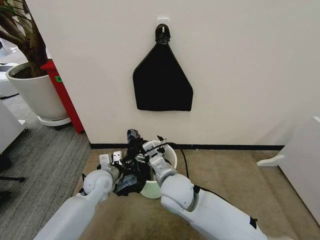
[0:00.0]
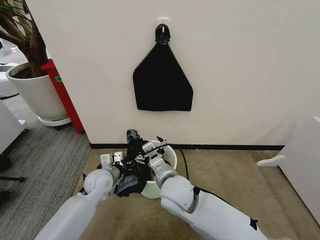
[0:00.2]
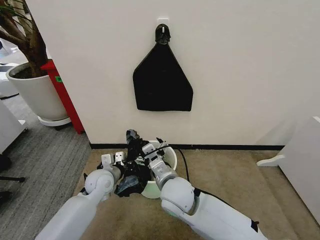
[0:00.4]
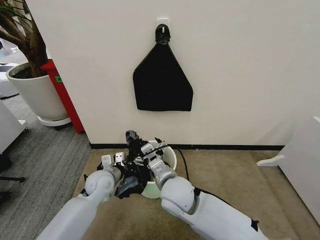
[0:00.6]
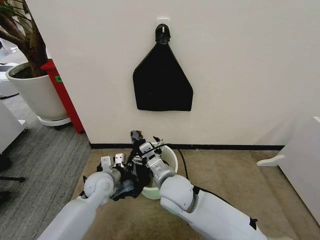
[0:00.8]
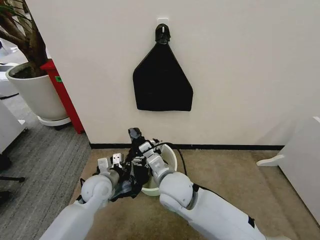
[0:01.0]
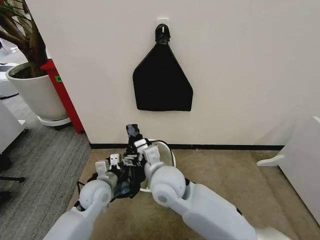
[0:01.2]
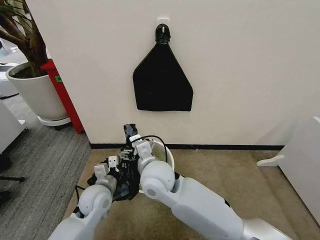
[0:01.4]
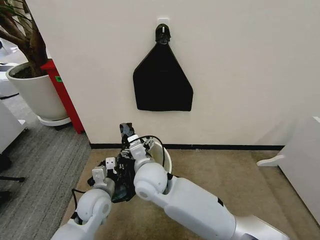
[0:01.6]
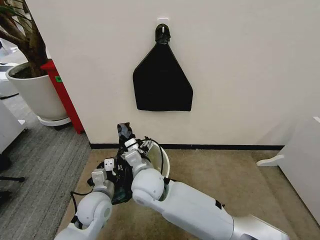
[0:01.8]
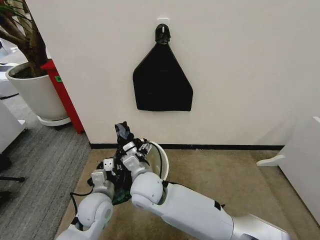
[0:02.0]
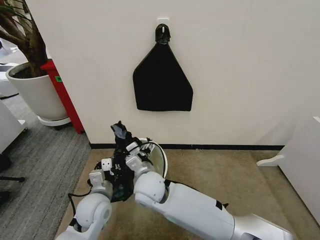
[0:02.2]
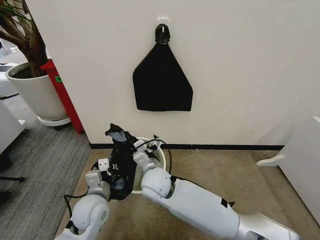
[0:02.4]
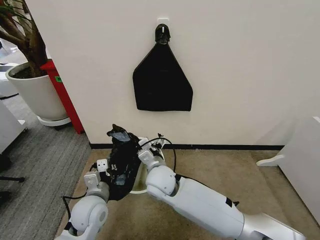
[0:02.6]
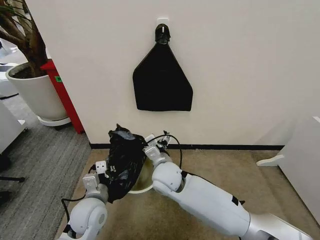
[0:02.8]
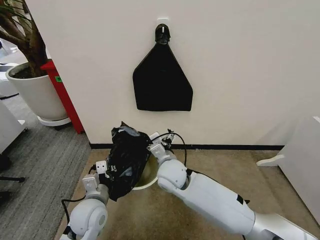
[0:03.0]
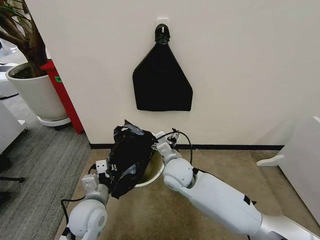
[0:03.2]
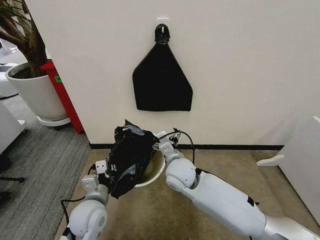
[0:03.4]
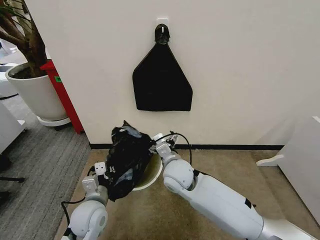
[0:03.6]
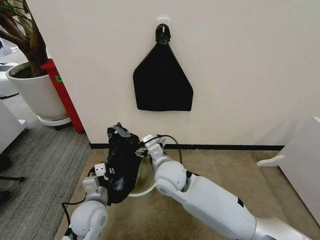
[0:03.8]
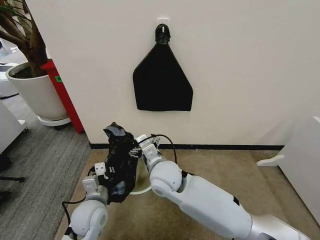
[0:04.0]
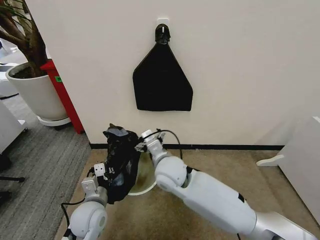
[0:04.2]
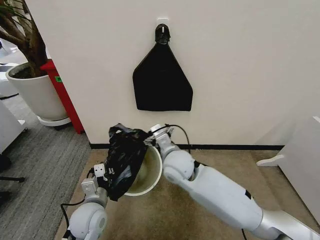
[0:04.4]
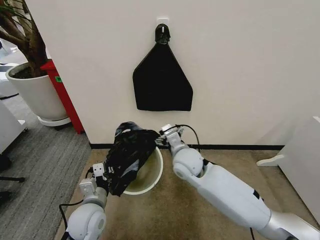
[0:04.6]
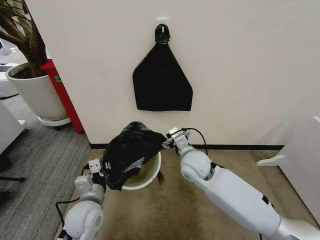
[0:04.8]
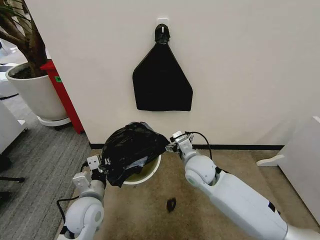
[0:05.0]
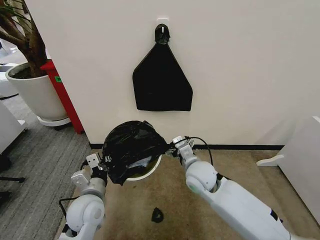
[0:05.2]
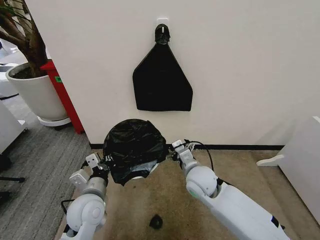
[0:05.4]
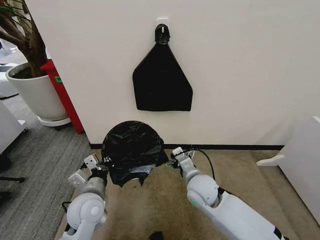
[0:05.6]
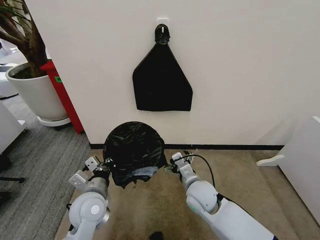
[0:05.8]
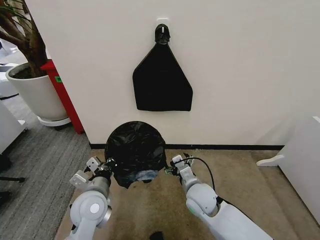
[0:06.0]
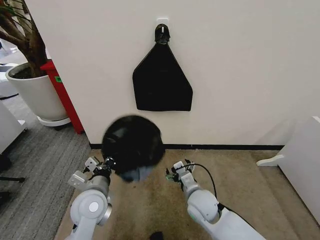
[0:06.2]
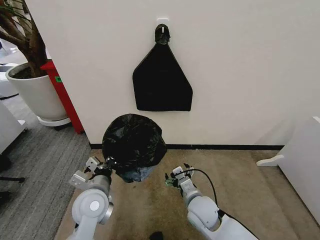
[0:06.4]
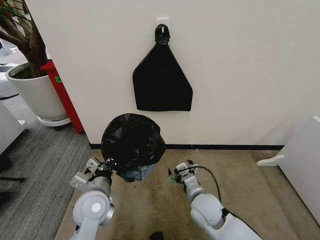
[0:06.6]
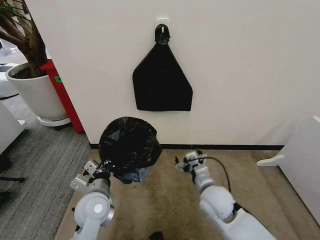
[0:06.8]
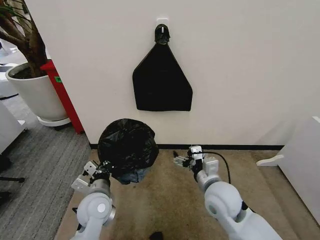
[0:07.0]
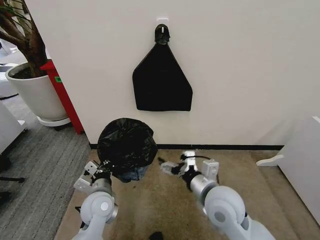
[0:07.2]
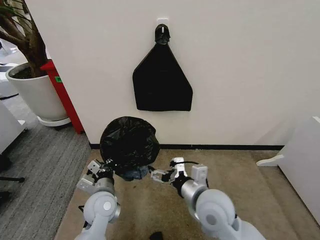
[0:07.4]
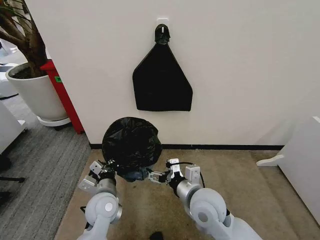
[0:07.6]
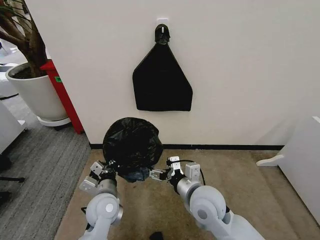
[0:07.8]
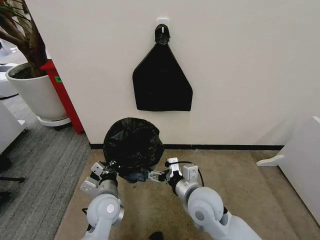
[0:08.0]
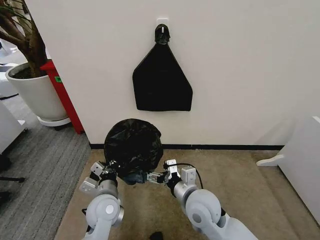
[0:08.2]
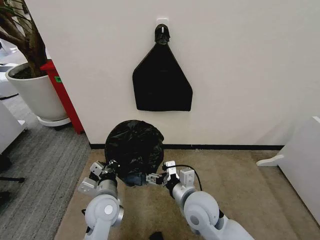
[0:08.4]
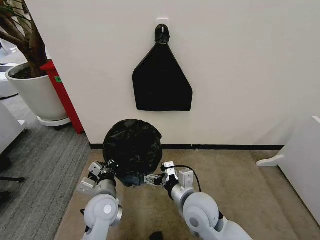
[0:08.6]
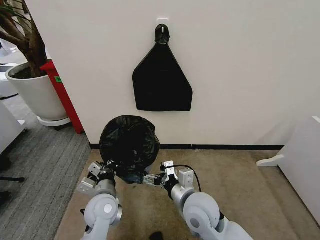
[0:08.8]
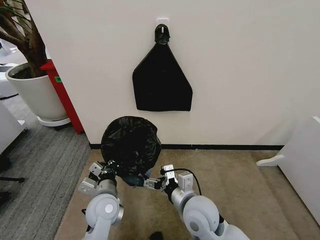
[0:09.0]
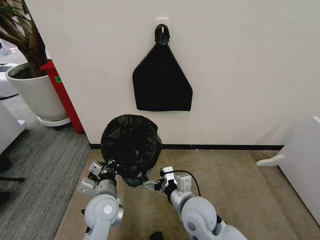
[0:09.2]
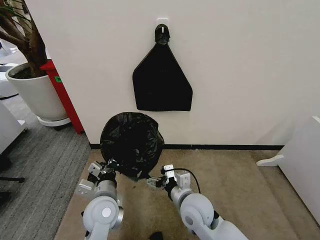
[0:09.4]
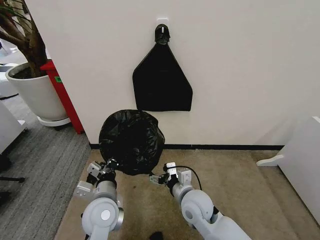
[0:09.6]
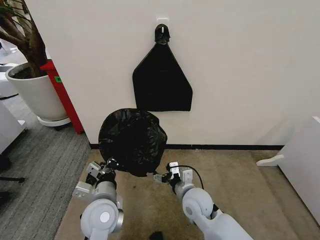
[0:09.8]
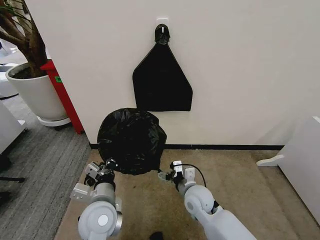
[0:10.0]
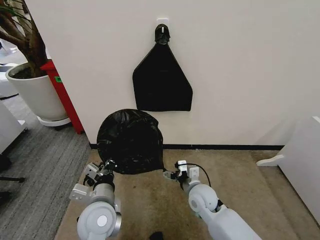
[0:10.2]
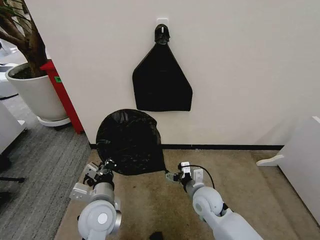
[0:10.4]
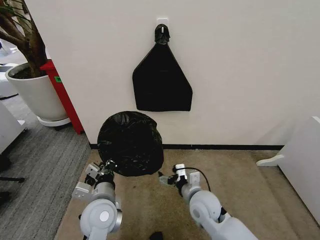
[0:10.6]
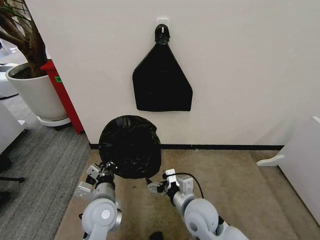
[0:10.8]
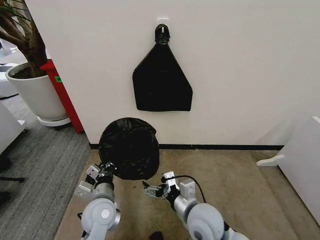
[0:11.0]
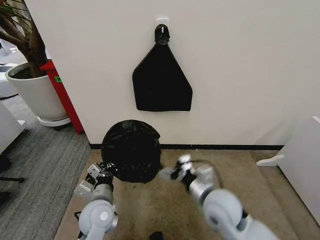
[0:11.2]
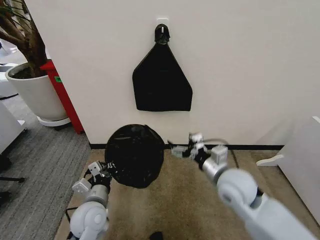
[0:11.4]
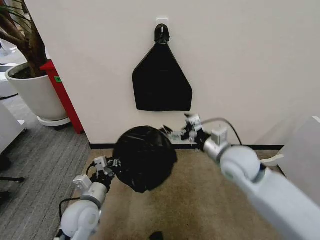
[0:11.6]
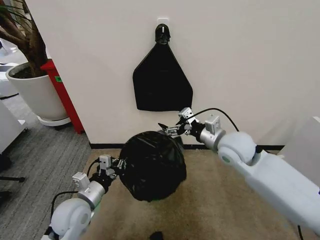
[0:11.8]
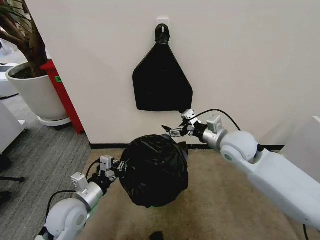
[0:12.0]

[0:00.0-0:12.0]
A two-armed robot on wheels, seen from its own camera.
Task of the whole recording: Place the garbage bag over the trash bin.
0:00.0 to 0:01.6: The left gripper shifts roughly 10 cm backward, and closes. Meanwhile the right gripper heads to the left, covering some 5 cm.
0:01.6 to 0:03.0: The right gripper shifts about 5 cm to the right.
0:03.0 to 0:04.4: The grippers make only small movements.
0:04.4 to 0:06.0: The left gripper travels upward by approximately 5 cm. The right gripper moves downward, to the right and backward, some 15 cm.
0:06.0 to 0:07.6: The left gripper moves approximately 5 cm; the right gripper is displaced upward and backward by approximately 10 cm.
0:07.6 to 0:09.0: The grippers move only a little.
0:09.0 to 0:10.4: The right gripper shifts some 10 cm downward and forward. The left gripper ends up roughly 5 cm from where it was.
0:10.4 to 0:12.0: The right gripper goes approximately 20 cm upward, forward and to the right. The left gripper shifts roughly 10 cm to the left.

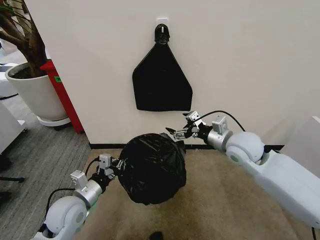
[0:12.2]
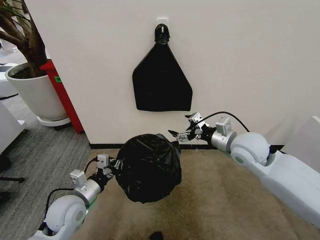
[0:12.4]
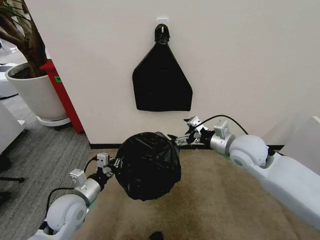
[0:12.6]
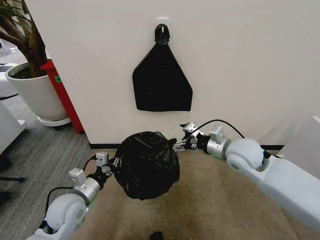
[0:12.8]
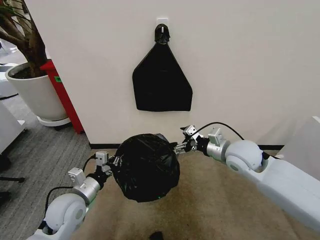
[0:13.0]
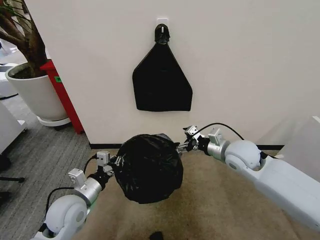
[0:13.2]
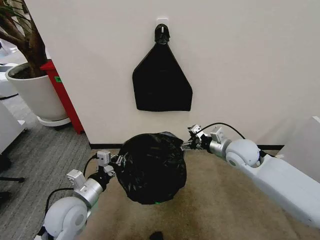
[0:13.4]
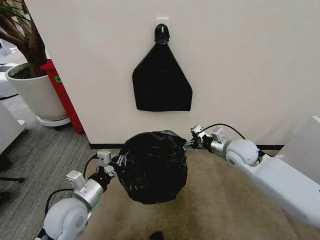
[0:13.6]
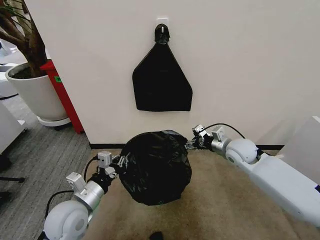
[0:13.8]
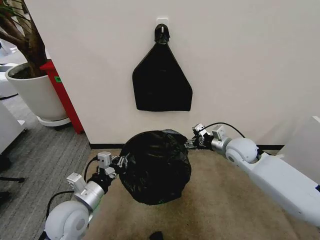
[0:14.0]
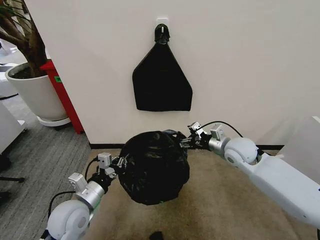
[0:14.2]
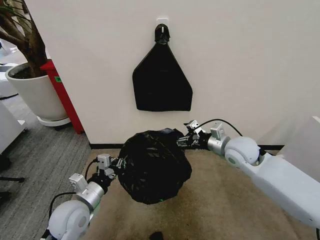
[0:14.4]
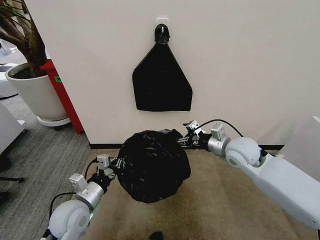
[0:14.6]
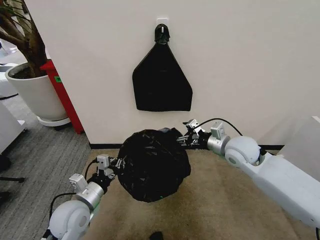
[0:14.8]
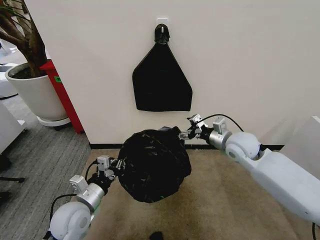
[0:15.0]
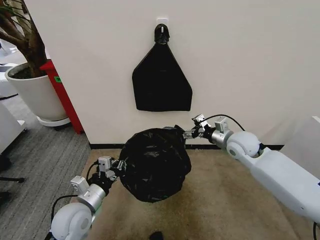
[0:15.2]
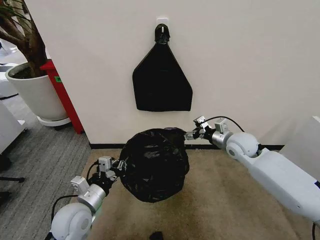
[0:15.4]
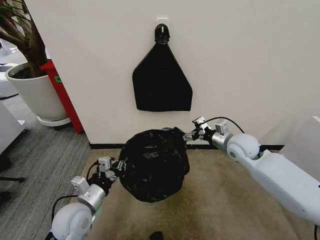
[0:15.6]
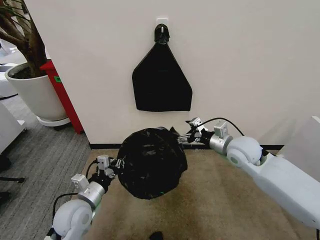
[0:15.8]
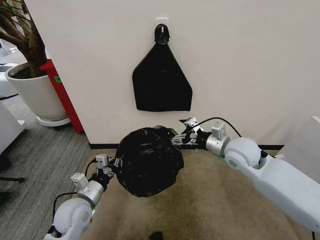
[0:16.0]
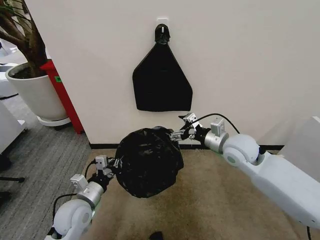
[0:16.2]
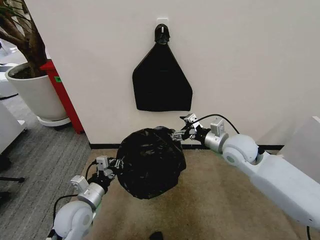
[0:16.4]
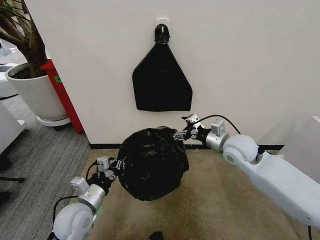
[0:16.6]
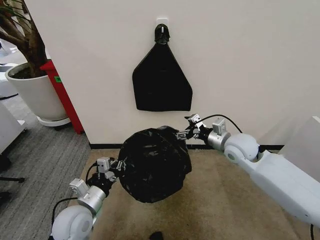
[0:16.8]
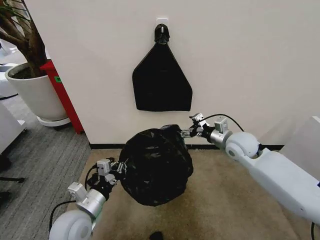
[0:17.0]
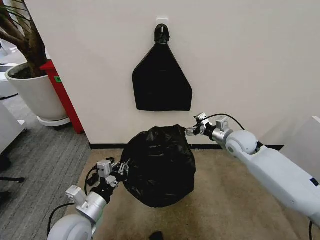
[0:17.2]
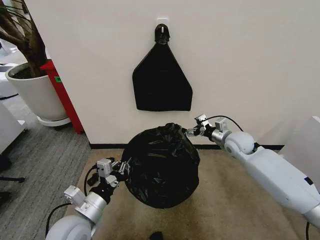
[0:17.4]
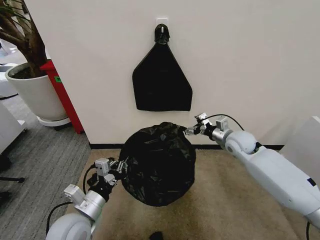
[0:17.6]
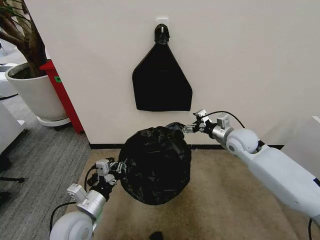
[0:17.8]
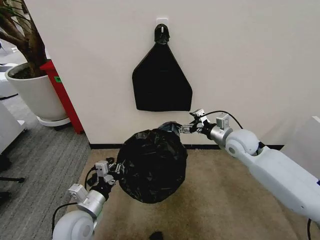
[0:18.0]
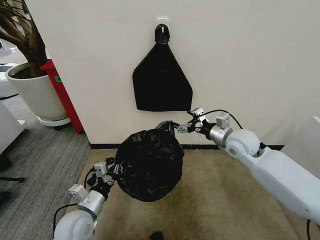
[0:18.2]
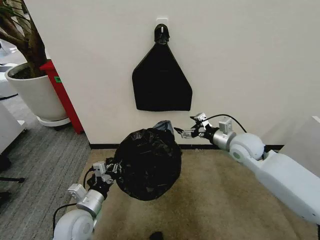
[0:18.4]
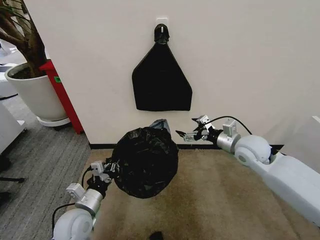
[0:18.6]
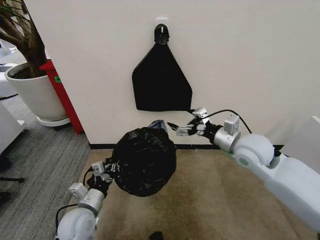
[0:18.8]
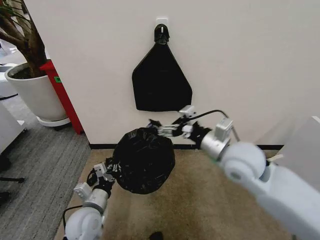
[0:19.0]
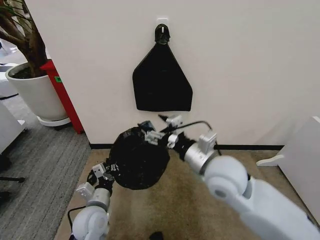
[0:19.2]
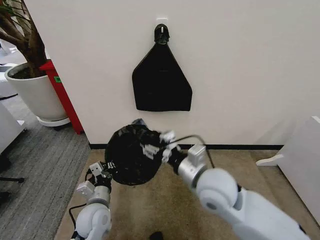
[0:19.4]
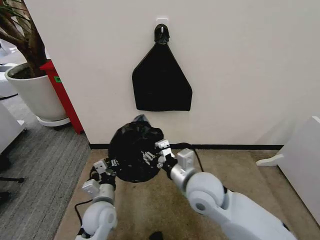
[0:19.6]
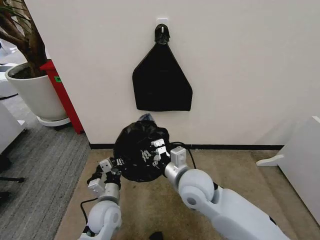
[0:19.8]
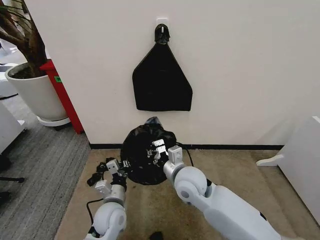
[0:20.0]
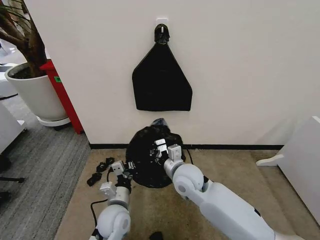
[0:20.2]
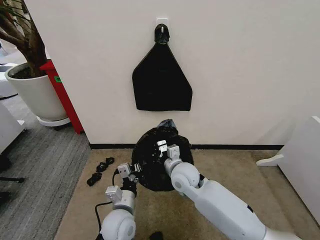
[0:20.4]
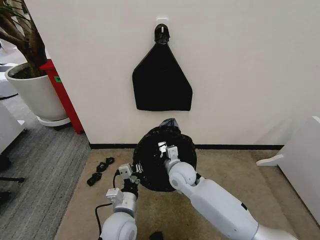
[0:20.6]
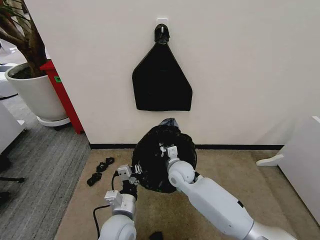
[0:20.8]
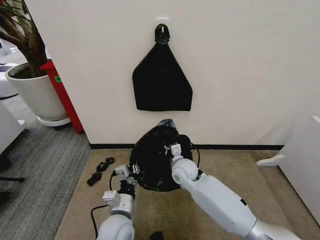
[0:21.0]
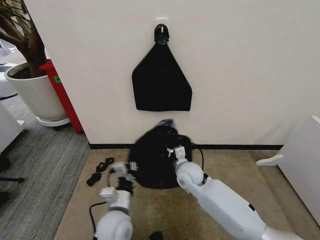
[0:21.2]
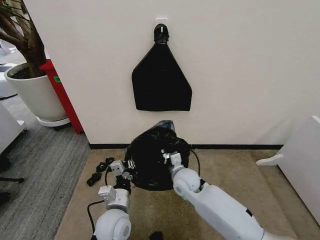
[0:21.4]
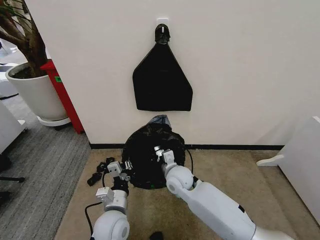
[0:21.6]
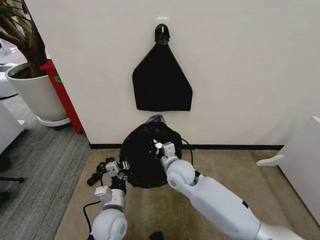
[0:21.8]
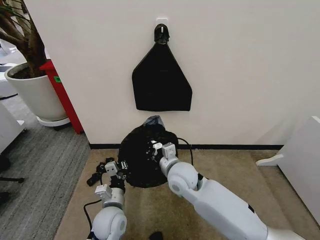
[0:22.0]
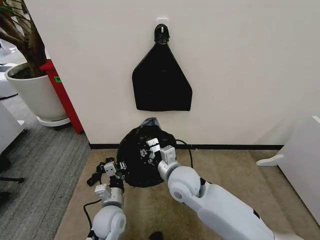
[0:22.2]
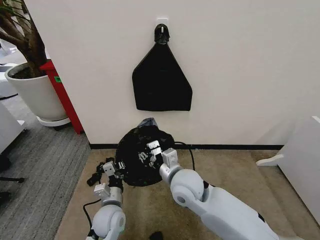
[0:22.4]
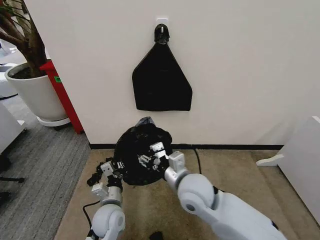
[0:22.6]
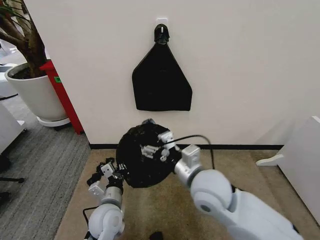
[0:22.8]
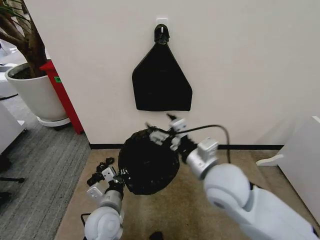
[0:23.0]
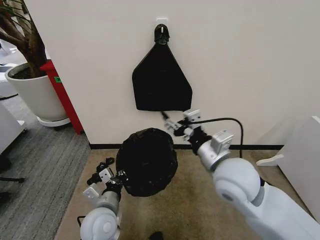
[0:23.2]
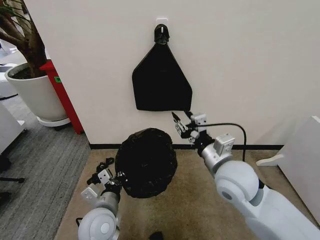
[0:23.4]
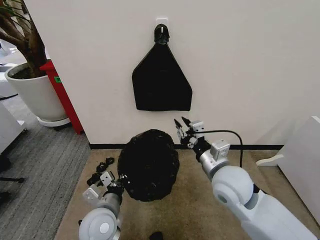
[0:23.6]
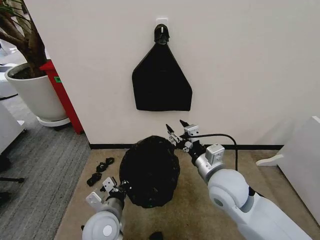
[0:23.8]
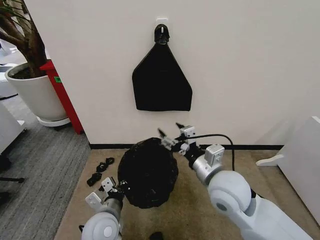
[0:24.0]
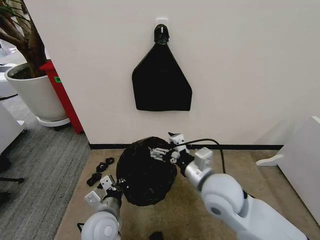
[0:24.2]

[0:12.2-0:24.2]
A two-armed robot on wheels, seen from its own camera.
Task of the whole recording: Place the garbage bag over the trash bin.
0:12.2 to 0:13.8: The right gripper travels downward by approximately 10 cm.
0:18.2 to 0:19.8: The right gripper moves to the left and backward, about 20 cm, and closes. Meanwhile the left gripper shifts roughly 5 cm to the right.
0:19.8 to 0:21.2: The left gripper changes place by about 5 cm. Meanwhile the right gripper goes approximately 15 cm downward and forward.
0:21.2 to 0:22.6: The right gripper goes about 15 cm backward and upward, and opens its fingers. Meanwhile the left gripper changes place by approximately 5 cm.
0:22.6 to 0:24.2: The left gripper heads upward, covering roughly 5 cm. The right gripper heads to the right, covering some 5 cm, and opens.
